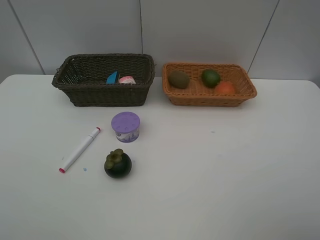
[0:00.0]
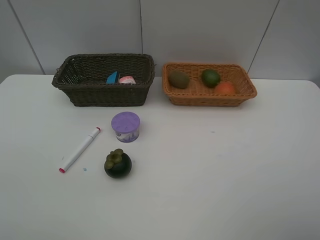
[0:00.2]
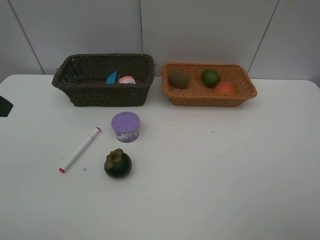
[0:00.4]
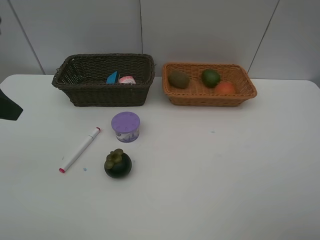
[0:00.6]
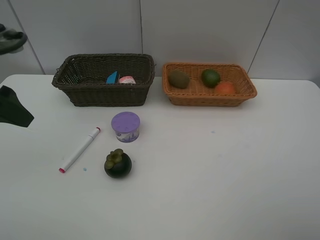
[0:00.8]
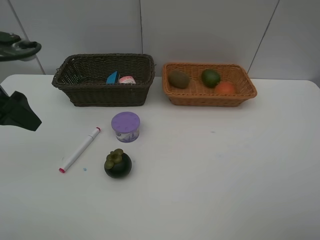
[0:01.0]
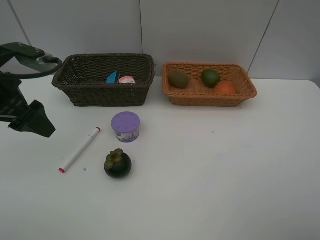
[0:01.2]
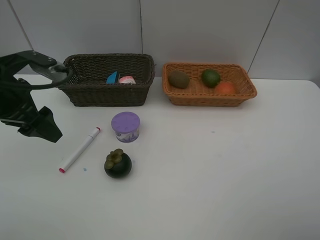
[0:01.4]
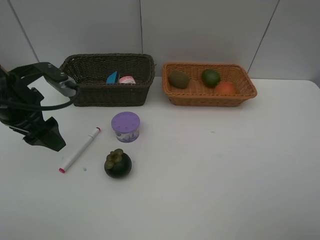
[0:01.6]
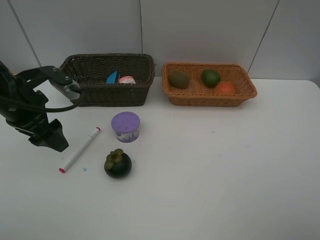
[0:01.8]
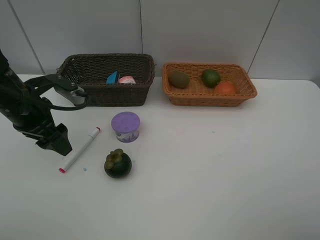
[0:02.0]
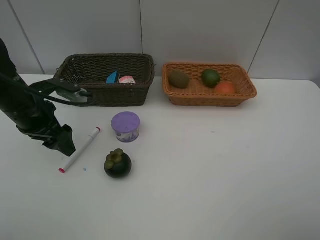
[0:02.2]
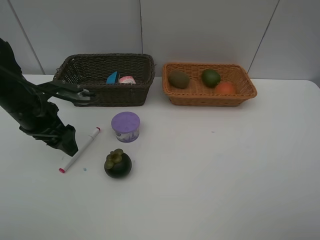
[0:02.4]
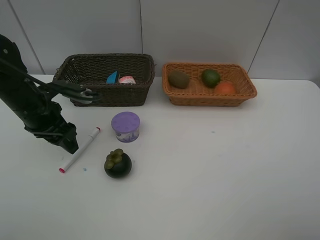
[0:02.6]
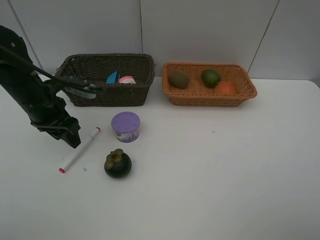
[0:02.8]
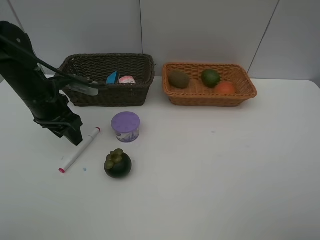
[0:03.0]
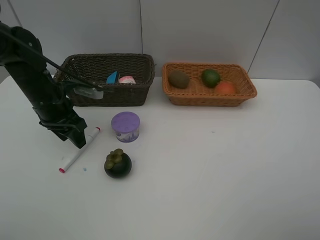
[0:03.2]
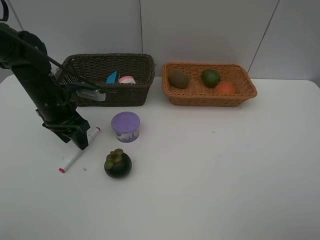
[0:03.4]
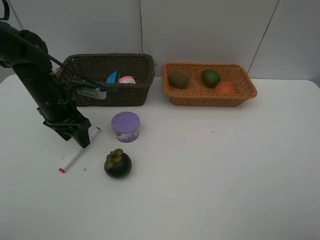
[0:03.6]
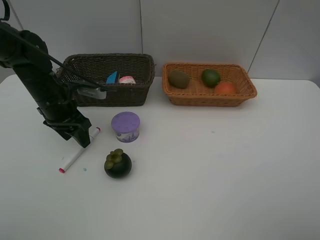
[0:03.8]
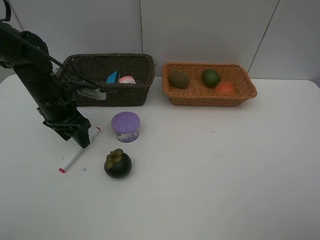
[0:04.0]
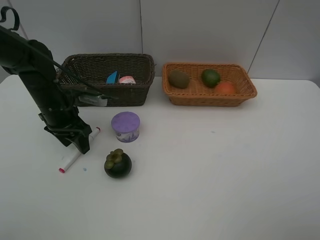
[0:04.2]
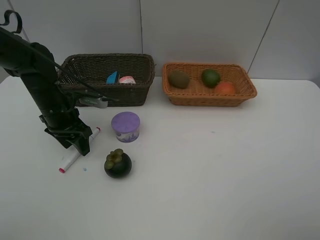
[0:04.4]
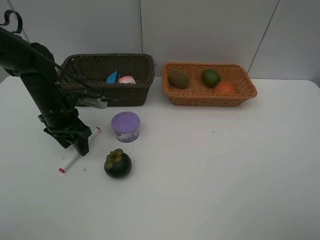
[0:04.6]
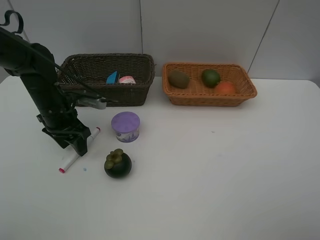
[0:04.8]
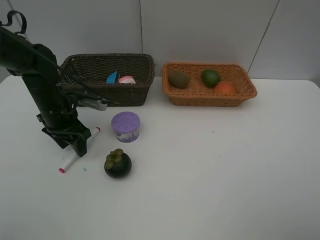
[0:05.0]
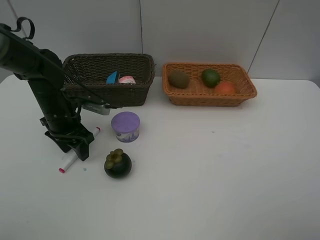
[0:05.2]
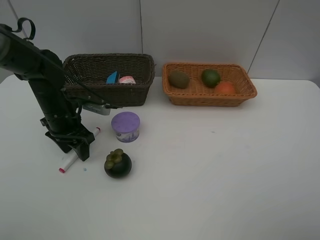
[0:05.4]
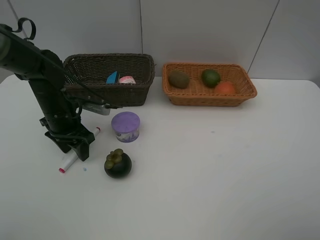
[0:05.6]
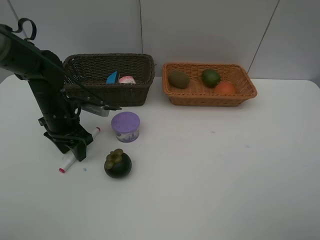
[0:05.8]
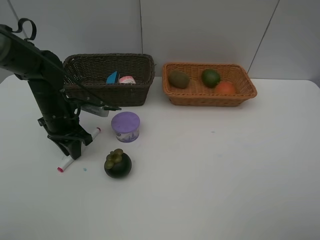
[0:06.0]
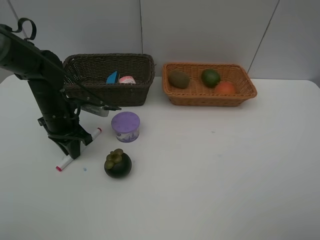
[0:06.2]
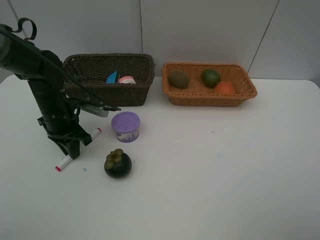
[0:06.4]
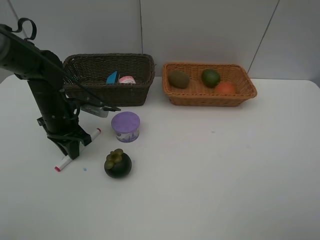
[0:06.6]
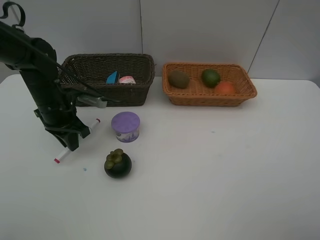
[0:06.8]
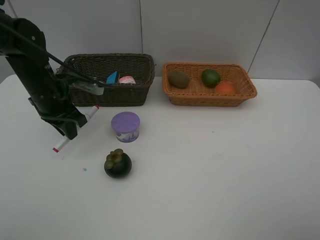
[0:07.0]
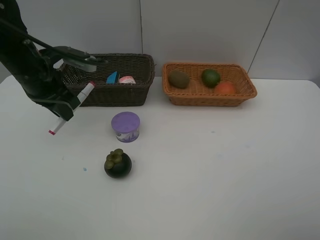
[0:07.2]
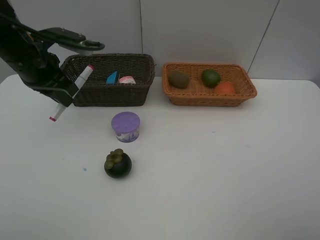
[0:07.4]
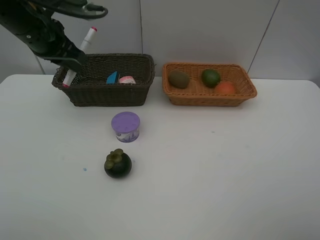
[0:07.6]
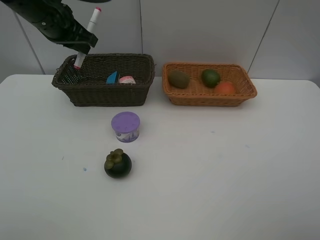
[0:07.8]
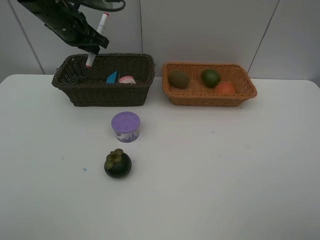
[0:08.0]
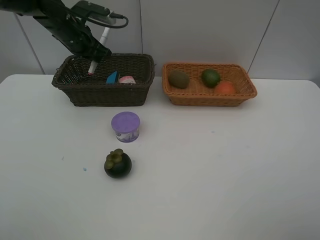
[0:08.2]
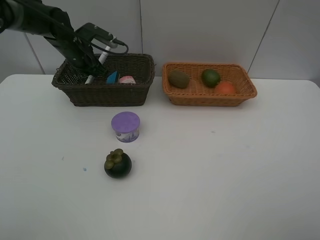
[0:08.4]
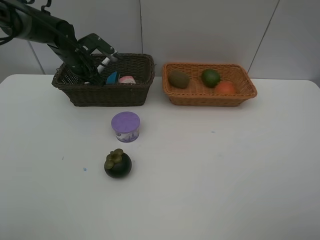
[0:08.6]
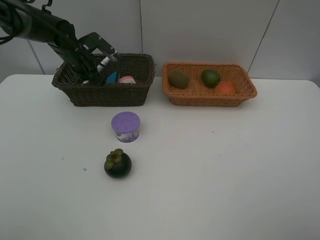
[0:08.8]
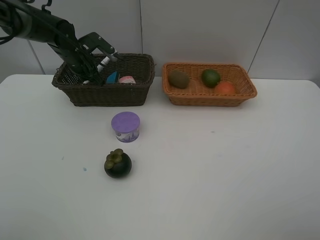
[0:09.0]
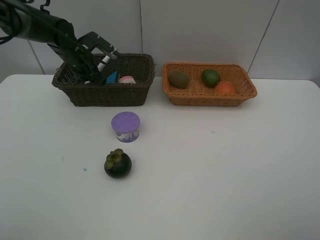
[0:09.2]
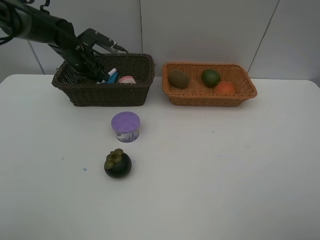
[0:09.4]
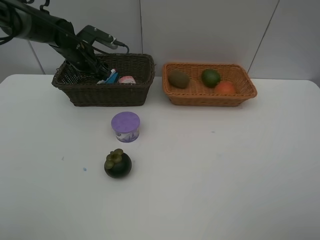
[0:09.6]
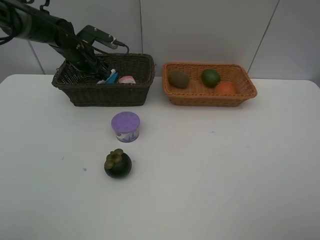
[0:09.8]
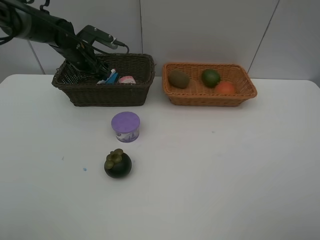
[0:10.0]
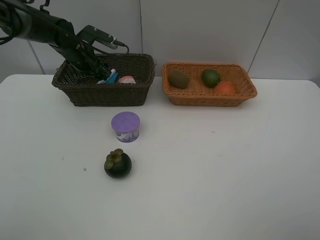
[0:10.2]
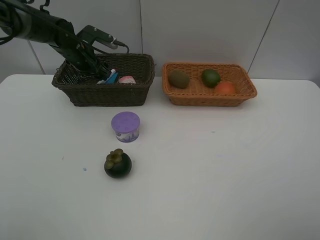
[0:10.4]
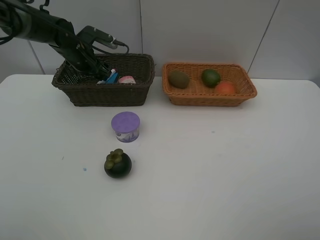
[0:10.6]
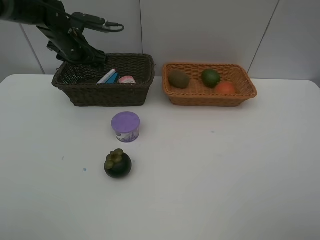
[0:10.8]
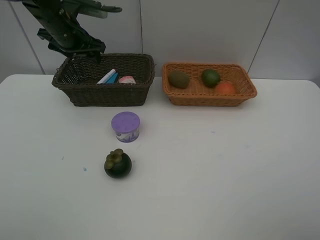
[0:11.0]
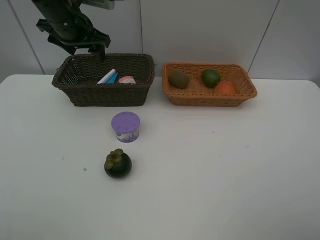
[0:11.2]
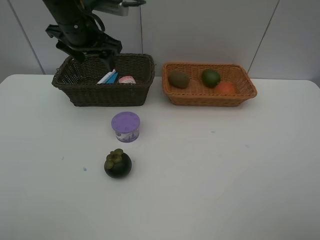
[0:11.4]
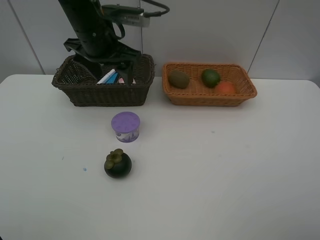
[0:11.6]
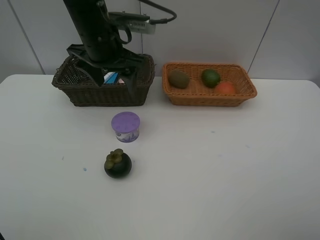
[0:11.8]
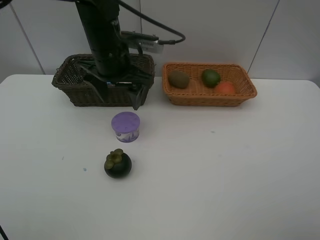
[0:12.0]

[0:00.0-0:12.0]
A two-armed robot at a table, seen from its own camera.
Task of the whole recording: Place multiple objects separately in different baskets.
Step, 0:00.0 to 0:06.8: Pick up the red marker with left gripper.
Step, 0:07.0 to 0:10.8: Place the red marker in the dark basket with left gripper.
0:00.0 to 0:01.6: The left gripper shifts about 20 cm downward and forward.
0:01.6 to 0:03.0: The left gripper travels forward and downward by roughly 10 cm.
0:03.0 to 0:04.4: The grippers move only a little.
0:04.4 to 0:06.0: The left gripper closes up.
0:06.0 to 0:07.6: The left gripper shifts approximately 20 cm upward.
0:07.6 to 0:09.0: The left gripper heads downward and forward, covering roughly 15 cm.
0:09.0 to 0:10.4: The left gripper opens up.
0:10.4 to 0:12.0: The left gripper shifts some 20 cm backward, to the right and upward.

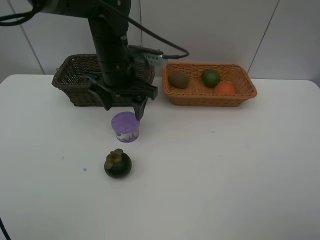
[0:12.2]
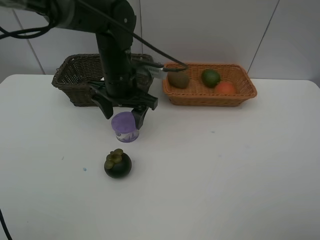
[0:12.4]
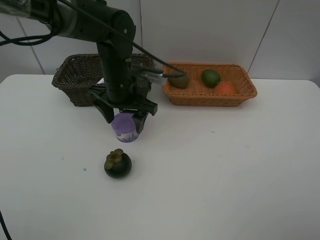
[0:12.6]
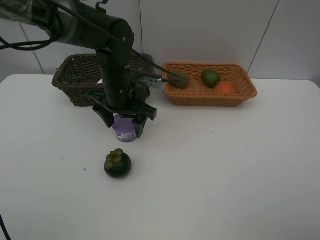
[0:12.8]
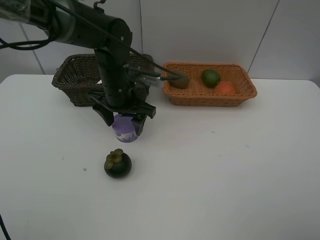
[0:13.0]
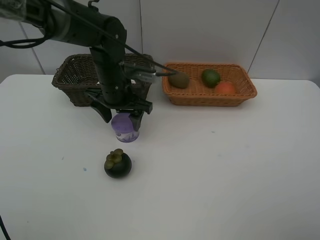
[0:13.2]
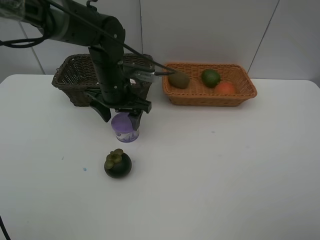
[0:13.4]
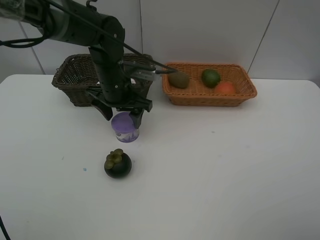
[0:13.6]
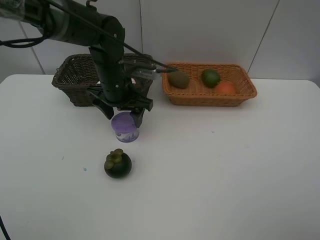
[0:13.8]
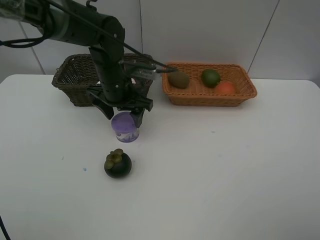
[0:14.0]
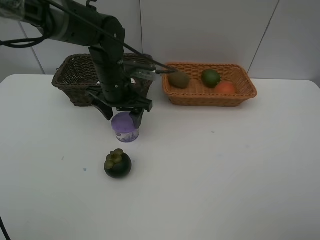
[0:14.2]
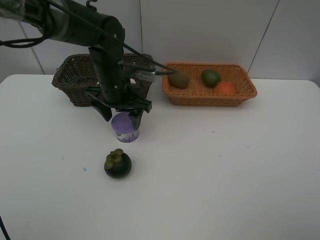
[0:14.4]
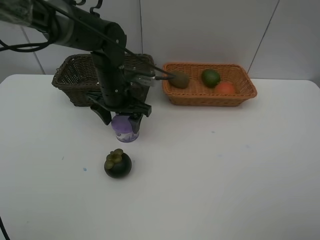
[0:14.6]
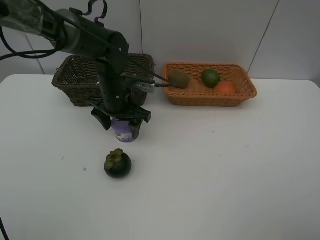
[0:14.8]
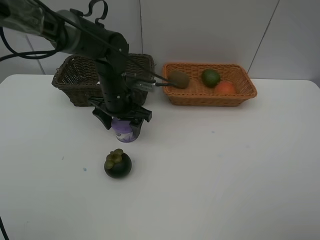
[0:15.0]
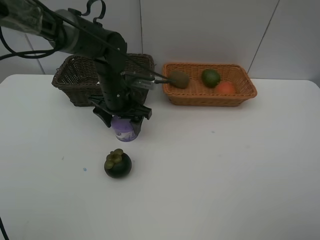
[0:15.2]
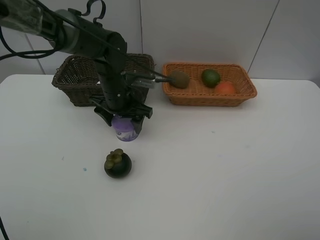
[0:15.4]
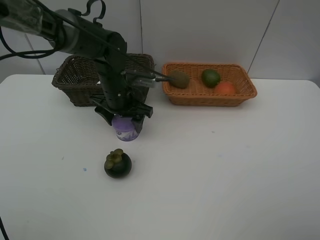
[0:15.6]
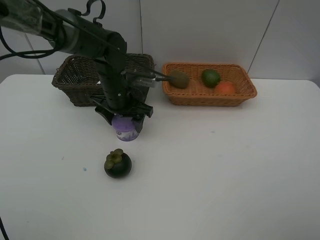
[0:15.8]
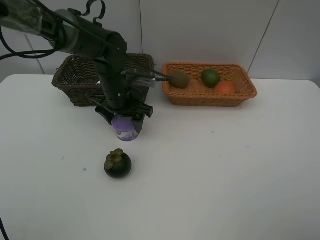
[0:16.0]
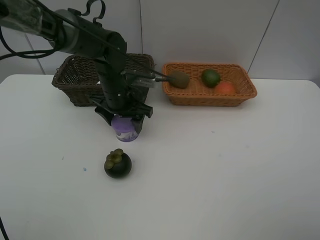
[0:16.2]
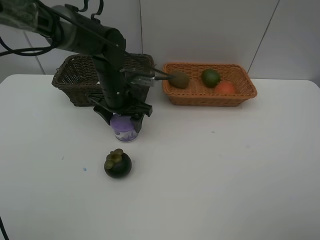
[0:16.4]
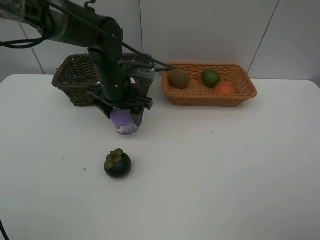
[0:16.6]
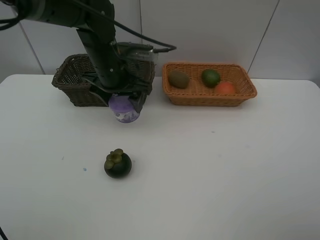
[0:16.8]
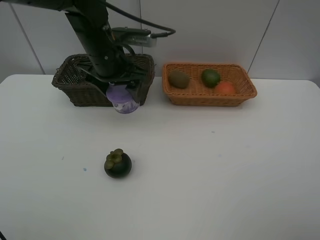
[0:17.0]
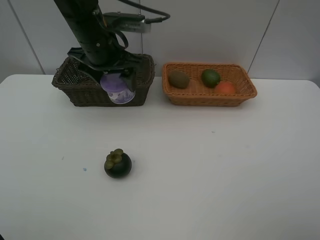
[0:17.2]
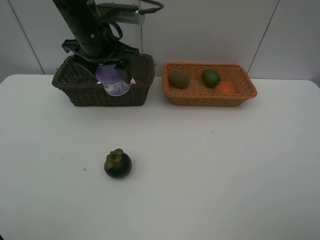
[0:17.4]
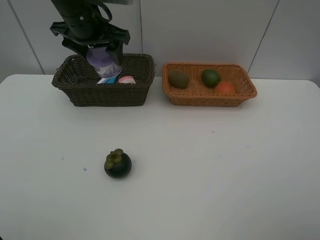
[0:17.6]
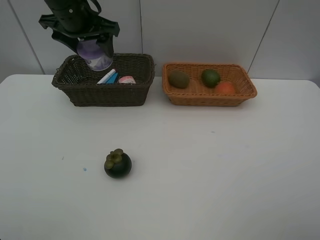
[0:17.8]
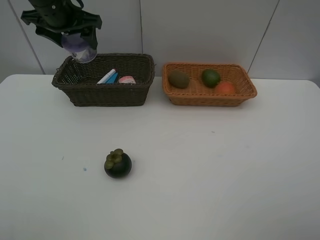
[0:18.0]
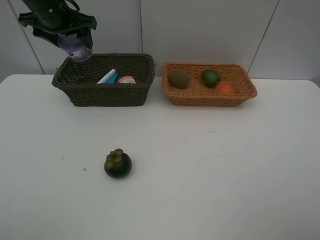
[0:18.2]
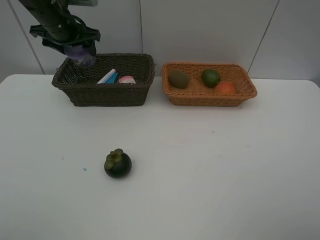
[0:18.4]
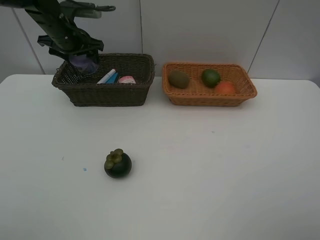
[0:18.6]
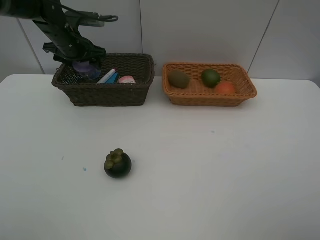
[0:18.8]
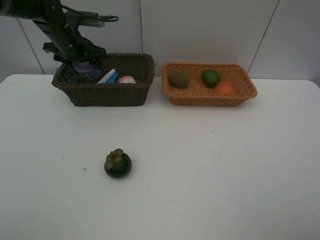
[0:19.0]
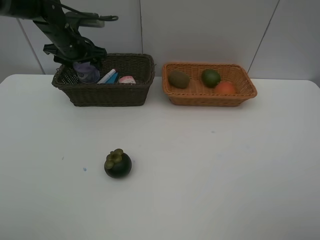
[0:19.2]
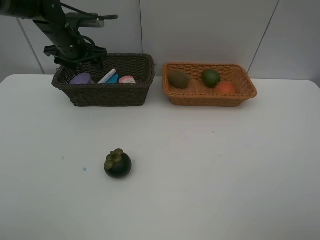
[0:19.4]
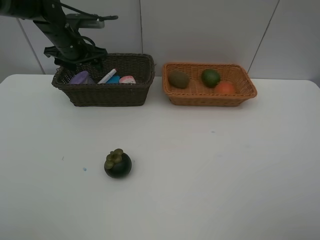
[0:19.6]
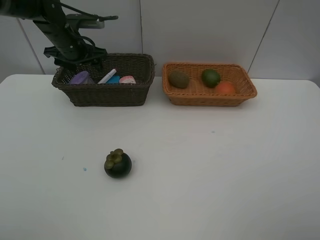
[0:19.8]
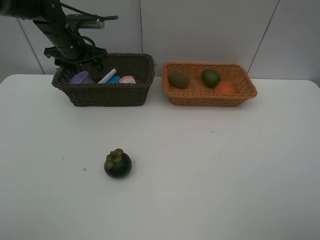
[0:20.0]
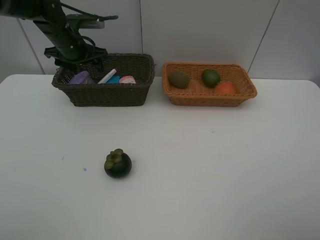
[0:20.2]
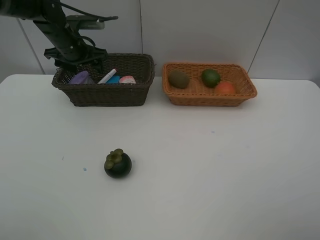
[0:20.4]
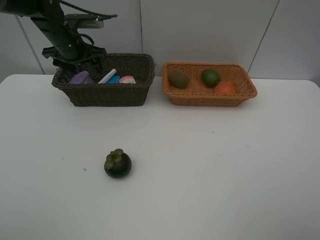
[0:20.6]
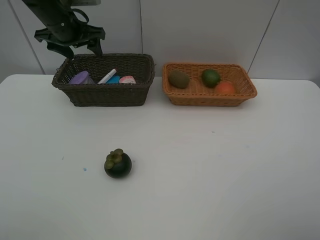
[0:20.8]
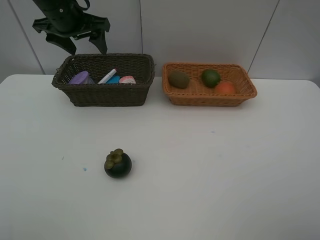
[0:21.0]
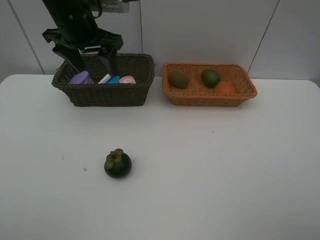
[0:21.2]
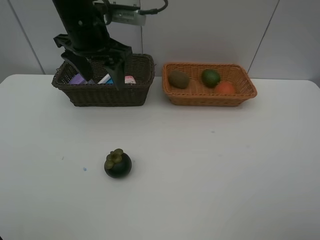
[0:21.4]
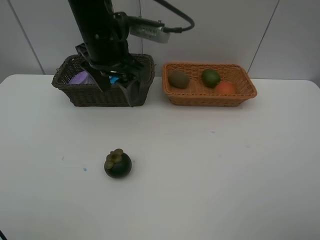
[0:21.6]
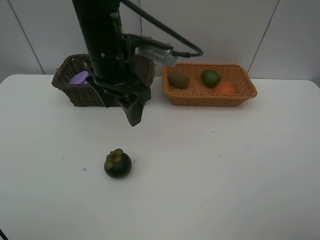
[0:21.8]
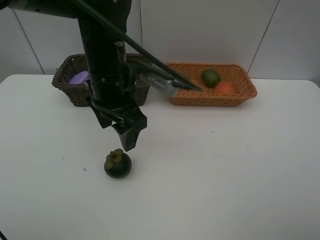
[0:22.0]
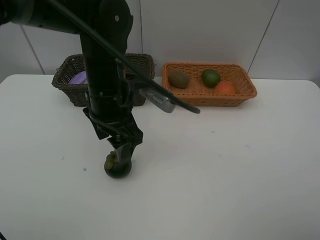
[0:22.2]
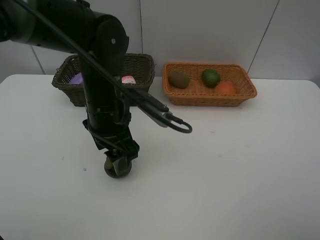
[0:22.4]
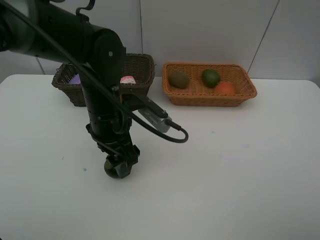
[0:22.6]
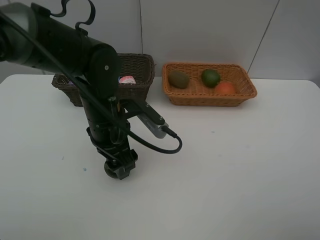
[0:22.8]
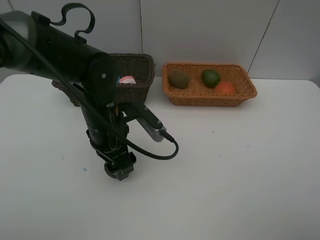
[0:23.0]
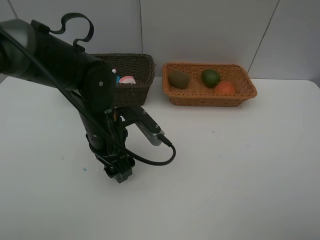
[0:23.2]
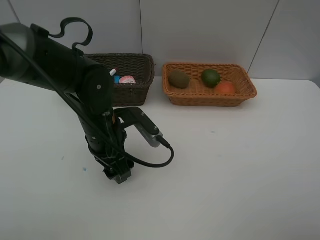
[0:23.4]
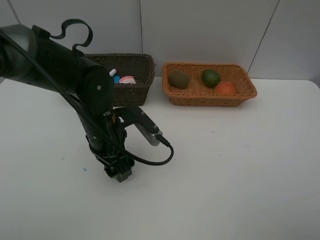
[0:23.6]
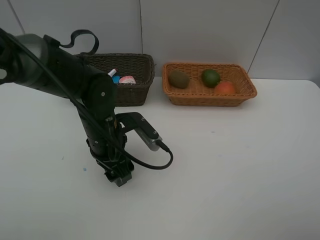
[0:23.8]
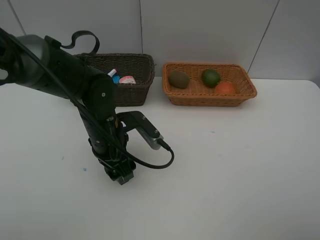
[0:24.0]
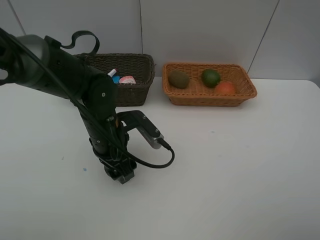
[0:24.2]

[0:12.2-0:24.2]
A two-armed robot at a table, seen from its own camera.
Task of the whole recording: Place multiple objects separately in different baskets.
Step, 0:12.2 to 0:16.6: Pick up Incense box with left gripper.
Step, 0:16.8 to 0:20.6: Place the Incense box in the dark basket with left gripper.
0:12.2 to 0:13.8: The left gripper shifts by some 5 cm.
0:13.8 to 0:16.6: The grippers make only small movements.
0:16.6 to 0:18.2: The left gripper heads to the left, upward and forward, covering about 20 cm.
0:18.2 to 0:19.8: The left gripper moves downward, about 10 cm.
0:19.8 to 0:21.2: The left gripper goes about 15 cm backward, upward and to the right.
0:21.2 to 0:22.6: The left gripper goes approximately 20 cm backward, downward and to the right.
0:22.6 to 0:24.2: The left gripper is displaced downward by approximately 5 cm.
